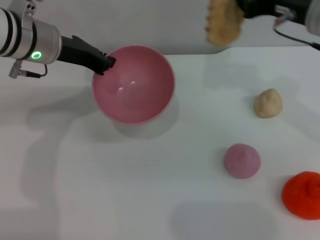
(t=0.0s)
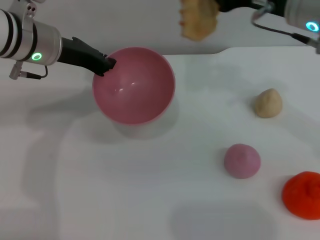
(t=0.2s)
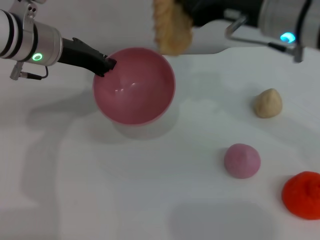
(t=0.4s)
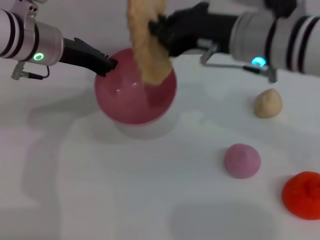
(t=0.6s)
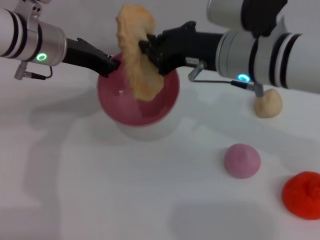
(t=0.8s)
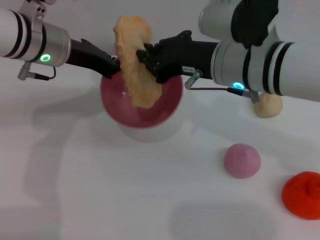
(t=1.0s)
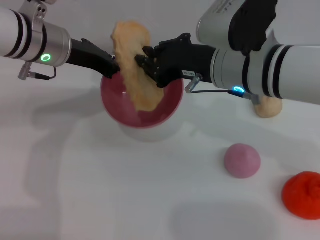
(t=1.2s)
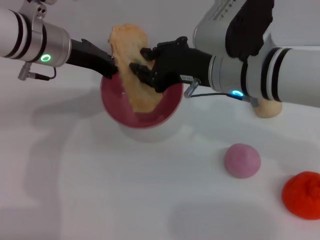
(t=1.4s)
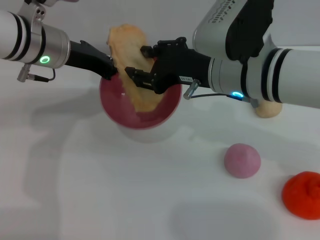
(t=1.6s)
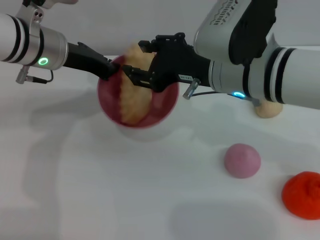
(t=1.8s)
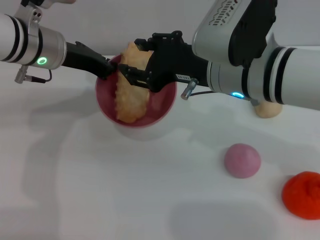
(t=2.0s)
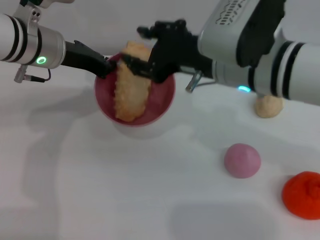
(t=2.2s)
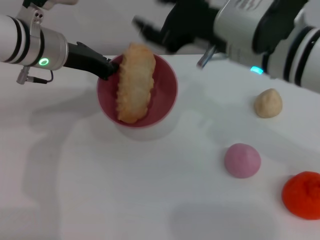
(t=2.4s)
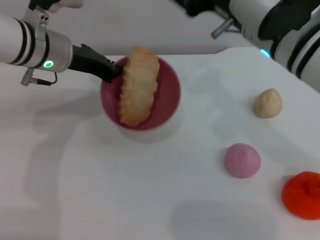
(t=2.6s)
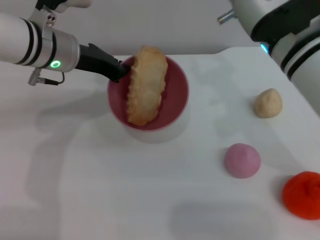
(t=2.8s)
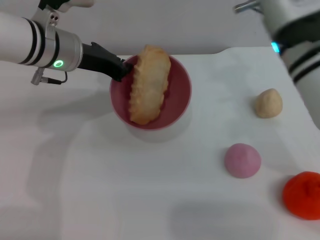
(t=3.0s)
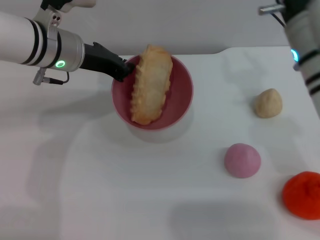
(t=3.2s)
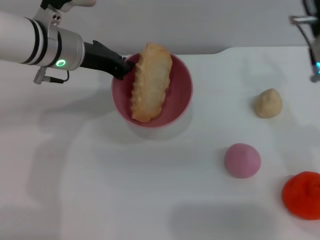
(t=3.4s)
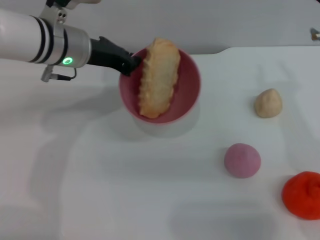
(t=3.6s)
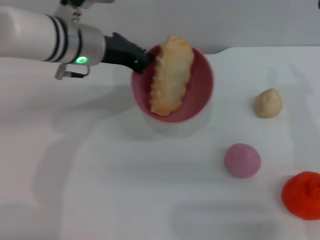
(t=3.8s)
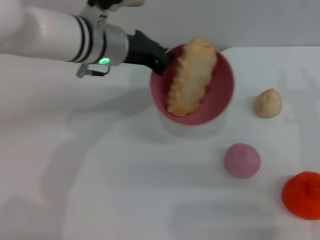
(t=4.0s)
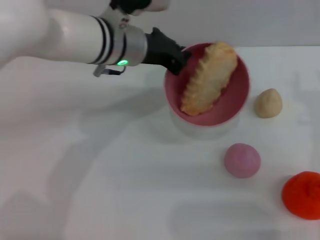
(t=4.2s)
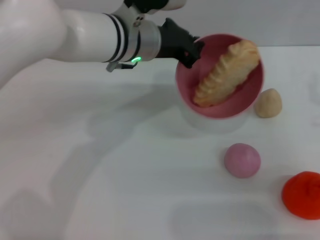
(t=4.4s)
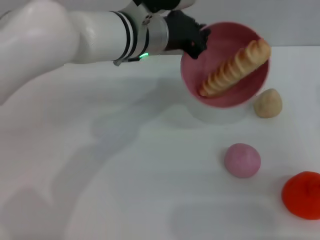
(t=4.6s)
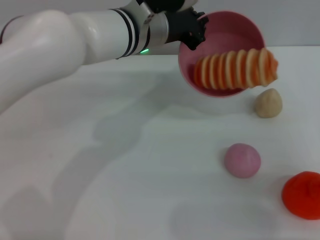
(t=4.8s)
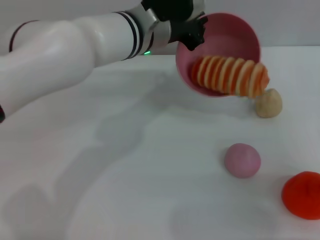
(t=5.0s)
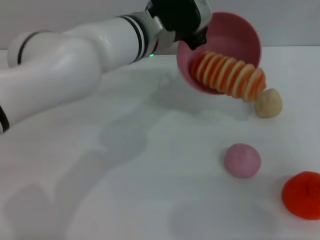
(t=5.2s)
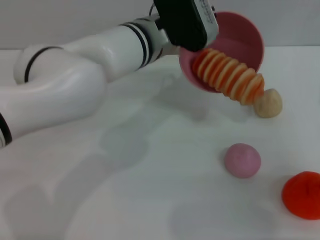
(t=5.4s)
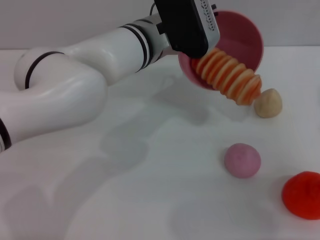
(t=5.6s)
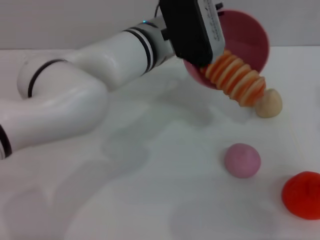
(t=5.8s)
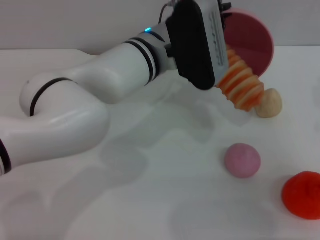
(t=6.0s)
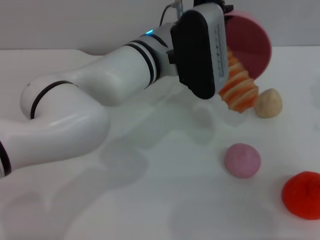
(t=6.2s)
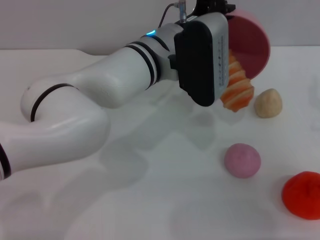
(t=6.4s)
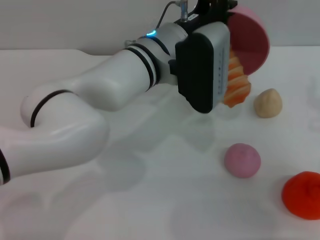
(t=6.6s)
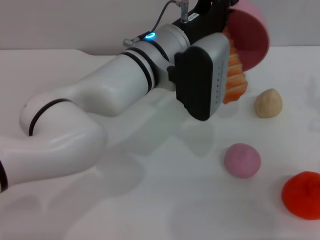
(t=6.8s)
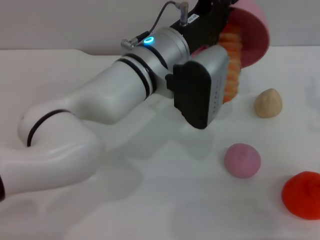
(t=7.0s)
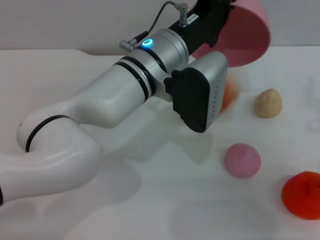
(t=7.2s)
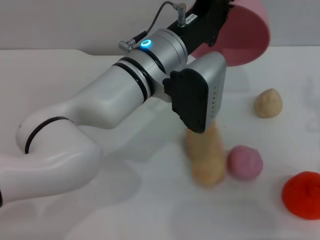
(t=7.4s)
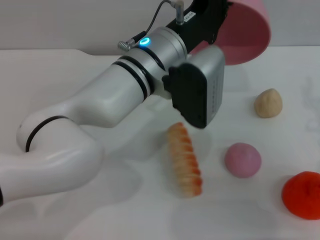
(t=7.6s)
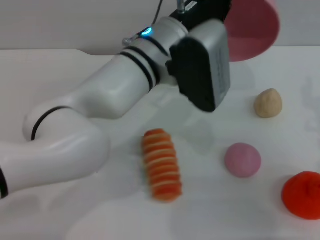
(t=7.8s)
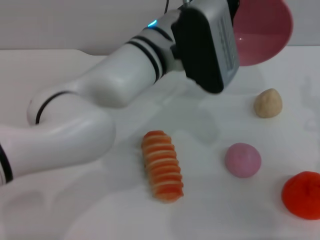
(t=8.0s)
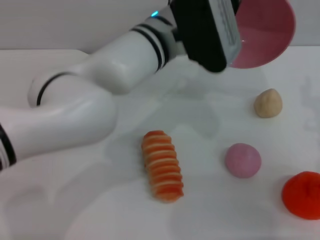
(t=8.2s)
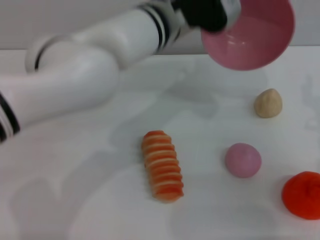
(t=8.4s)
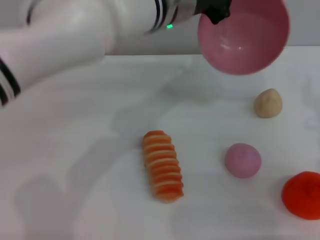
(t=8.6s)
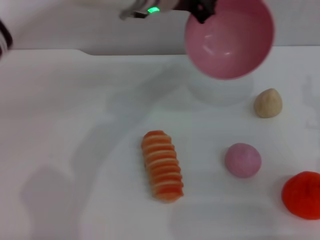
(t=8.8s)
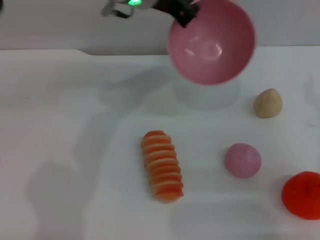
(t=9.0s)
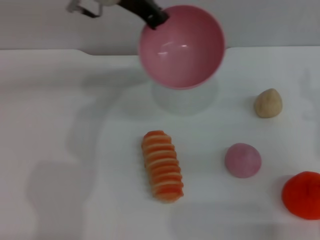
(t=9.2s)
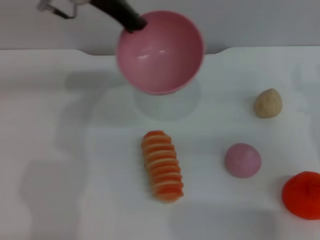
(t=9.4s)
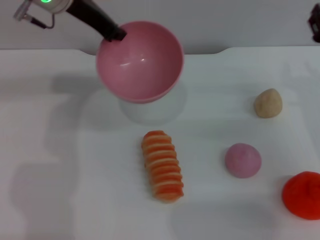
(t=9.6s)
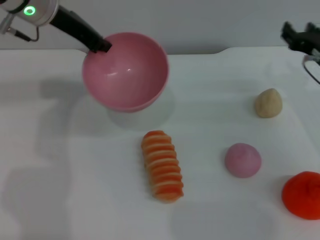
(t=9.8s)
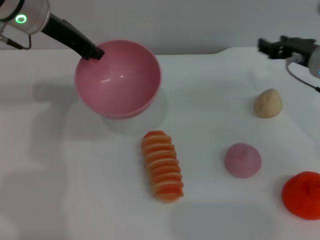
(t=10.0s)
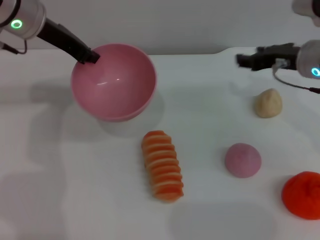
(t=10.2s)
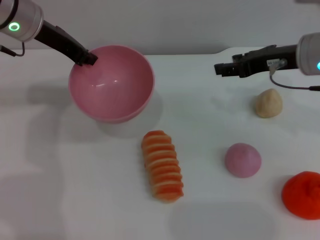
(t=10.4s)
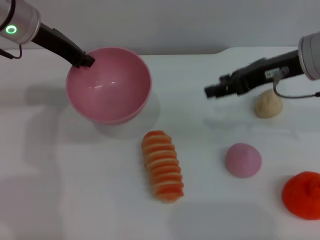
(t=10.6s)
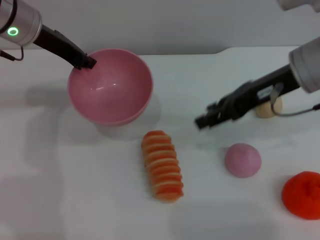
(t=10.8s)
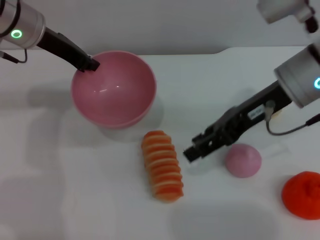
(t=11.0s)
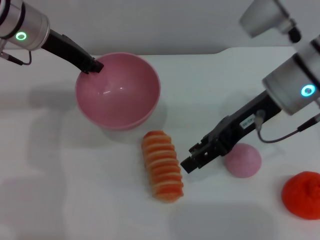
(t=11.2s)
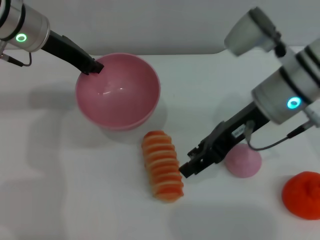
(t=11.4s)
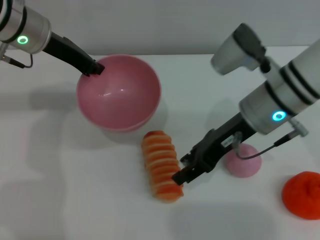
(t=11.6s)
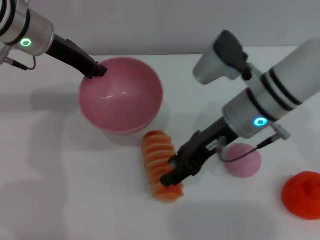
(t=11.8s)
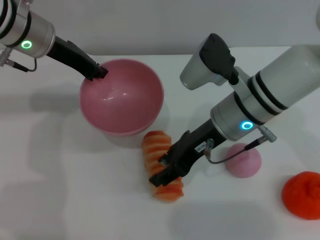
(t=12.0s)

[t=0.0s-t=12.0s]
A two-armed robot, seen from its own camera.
Task of the whole recording: put the bread into the pink bowl and pour it out repeatedly.
Step, t=0.0s to t=2.4s: Place the bread into the bowl.
Step, t=2.6s to t=8.0s: Pour the bread out of the bowl.
t=0.0s to t=1.6s: The right gripper moves to the left, roughly 10 cm, and opens its fingers.
t=1.6s to t=3.0s: The right gripper opens its fingers.
t=3.0s to t=4.4s: The left gripper goes some 10 cm to the right, while the right gripper goes roughly 15 cm to the right and downward.
t=7.6s to t=9.0s: The left gripper travels forward and upward by roughly 10 cm.
t=9.0s to t=10.4s: The left gripper moves to the left, some 15 cm, while the right gripper travels forward, upward and to the left by roughly 15 cm.
t=10.4s to t=12.0s: The right gripper moves to the left and downward, about 10 cm.

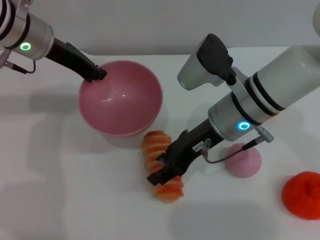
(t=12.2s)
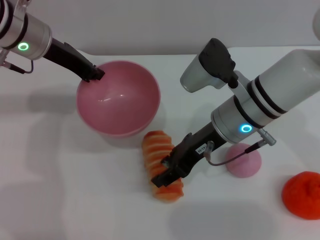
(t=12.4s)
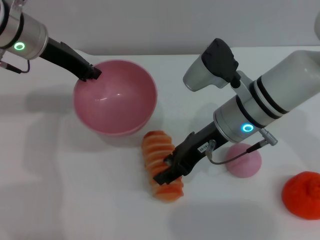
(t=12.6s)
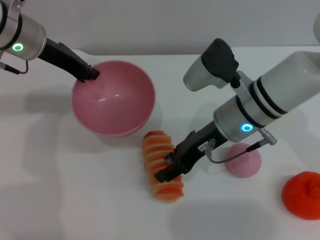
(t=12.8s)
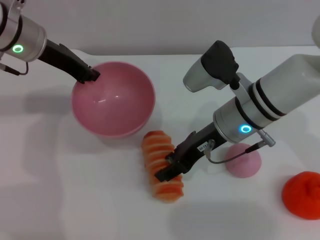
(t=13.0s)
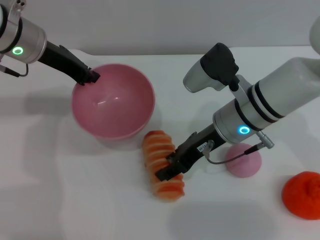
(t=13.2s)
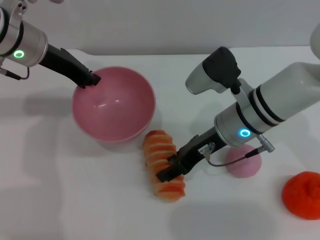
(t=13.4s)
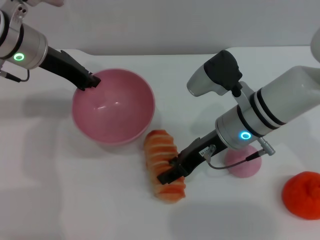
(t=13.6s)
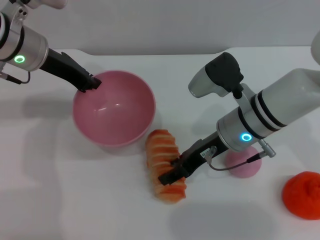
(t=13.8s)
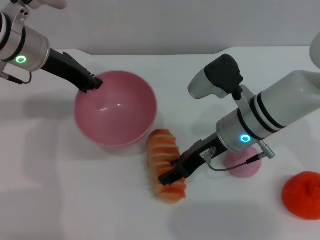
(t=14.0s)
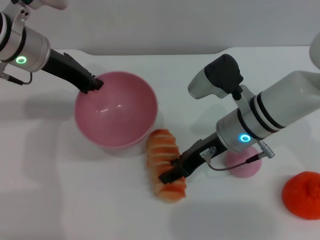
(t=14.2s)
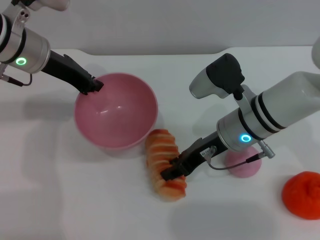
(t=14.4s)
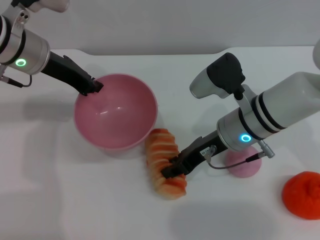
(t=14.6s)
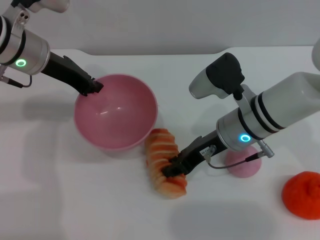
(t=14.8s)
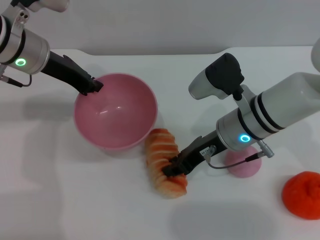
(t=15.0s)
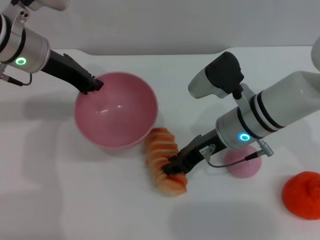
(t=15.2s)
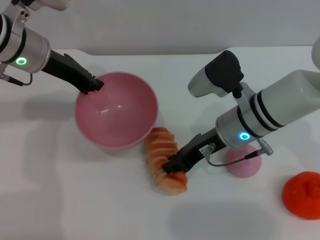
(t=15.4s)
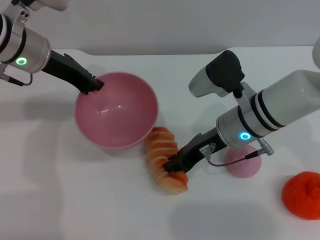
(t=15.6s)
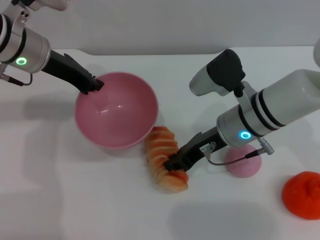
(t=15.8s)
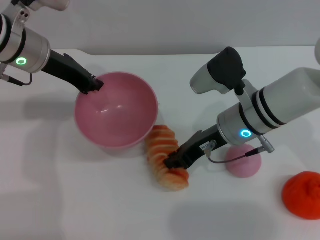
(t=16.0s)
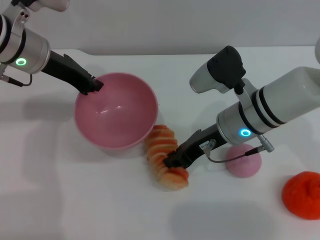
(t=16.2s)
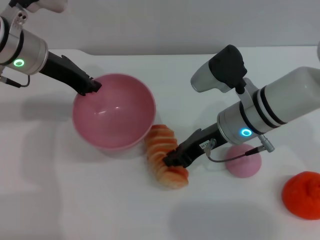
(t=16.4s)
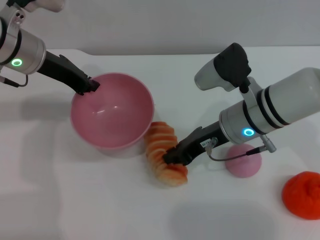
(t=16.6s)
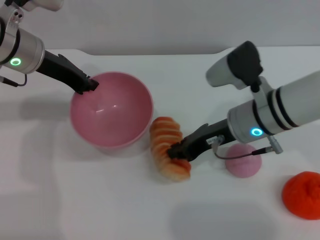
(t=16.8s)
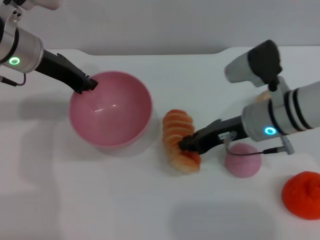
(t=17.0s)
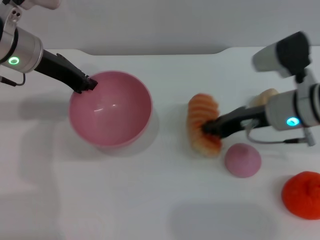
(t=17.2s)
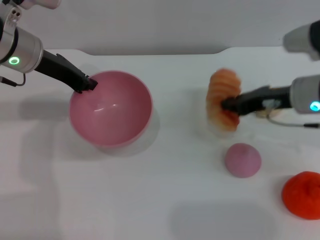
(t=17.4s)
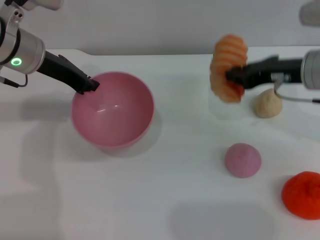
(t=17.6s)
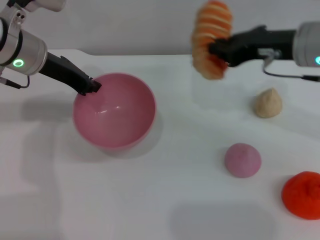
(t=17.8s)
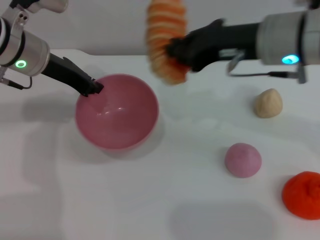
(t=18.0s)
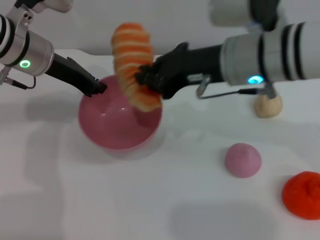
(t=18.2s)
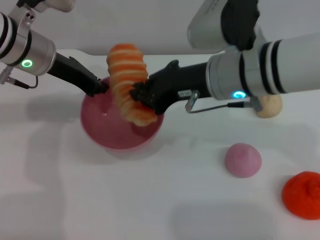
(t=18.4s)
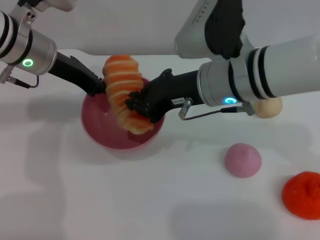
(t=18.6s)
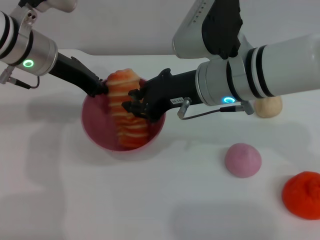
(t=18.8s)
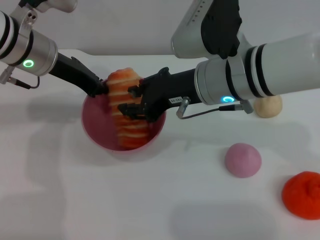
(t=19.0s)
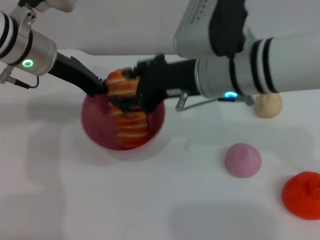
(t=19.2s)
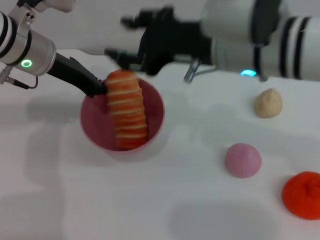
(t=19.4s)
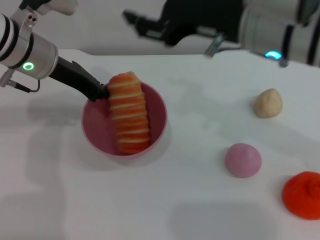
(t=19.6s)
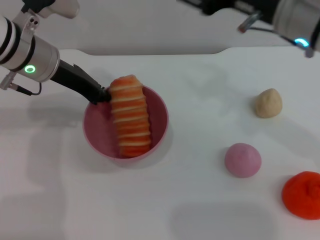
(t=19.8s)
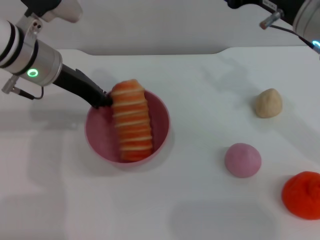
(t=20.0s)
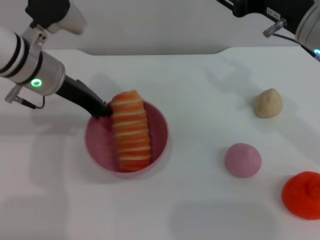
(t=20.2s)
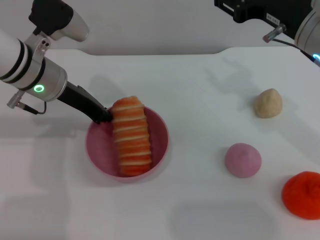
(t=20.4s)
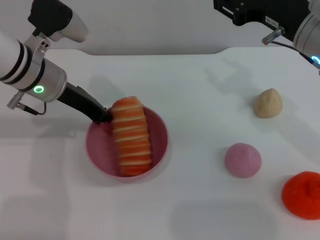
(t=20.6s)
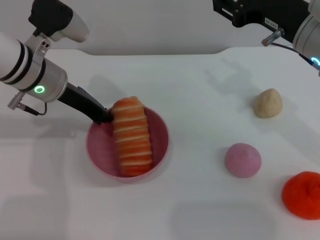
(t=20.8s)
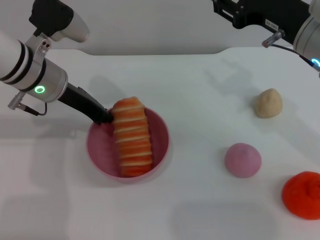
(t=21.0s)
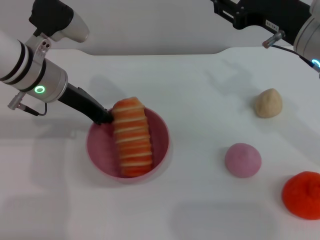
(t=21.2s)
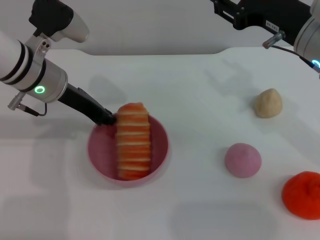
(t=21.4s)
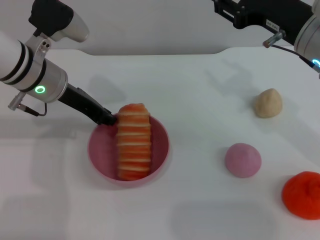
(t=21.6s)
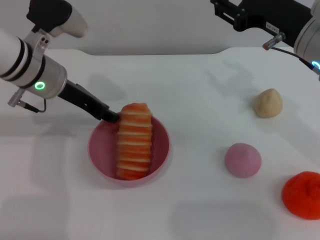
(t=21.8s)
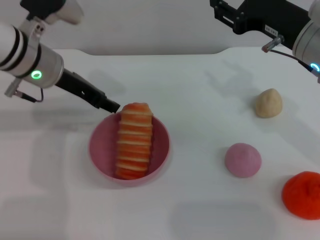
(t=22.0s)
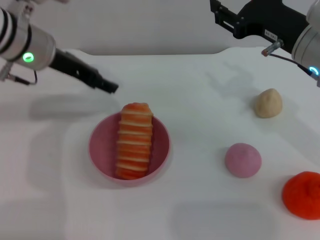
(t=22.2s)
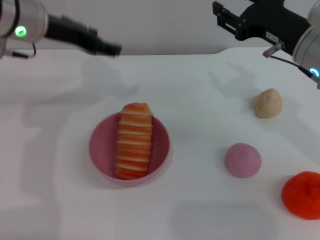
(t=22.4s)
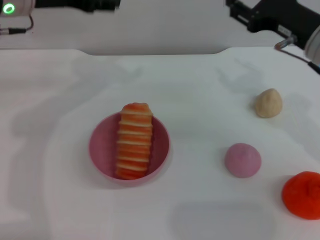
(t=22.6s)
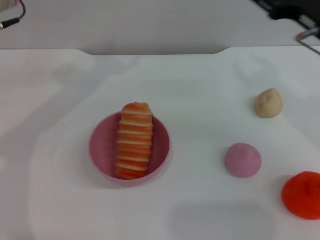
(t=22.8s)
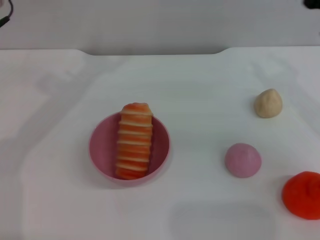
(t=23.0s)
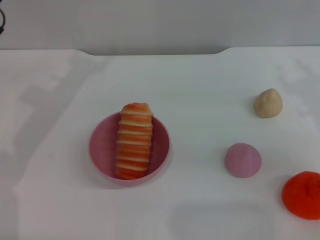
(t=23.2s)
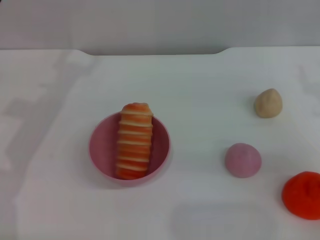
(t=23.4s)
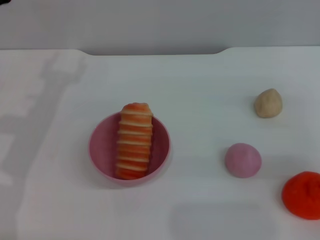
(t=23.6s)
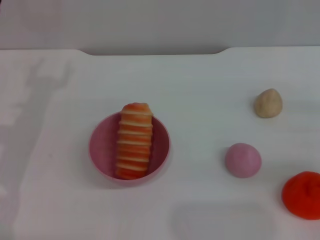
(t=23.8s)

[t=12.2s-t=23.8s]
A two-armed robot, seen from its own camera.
Task of the whole recording: put the bread into the pink bowl and pour it out repeatedly.
Step, t=12.2s to t=17.6s: Pick up the bread with the right gripper.
Step, t=17.8s to t=19.2s: Place the bread into the bowl.
Step, t=19.4s to t=22.2s: Place the bowl on the table.
t=12.2s to t=13.6s: The grippers make only small movements.
t=13.6s to t=15.0s: The right gripper closes up.
t=15.0s to t=16.6s: Both grippers stay about where they are.
t=16.6s to t=18.0s: The right gripper goes roughly 10 cm upward.
t=18.0s to t=19.4s: The right gripper shifts by roughly 5 cm, and opens.
t=19.4s to t=21.0s: The right gripper heads to the right, covering some 10 cm.
t=21.0s to t=22.4s: The left gripper shifts approximately 10 cm upward, and opens up.
t=22.4s to t=23.8s: The left gripper heads downward, to the left and backward, covering roughly 15 cm; the right gripper is displaced to the right and downward by some 20 cm.
